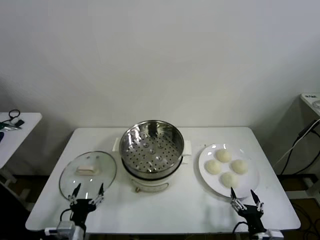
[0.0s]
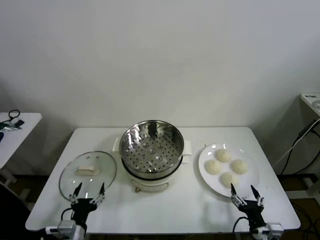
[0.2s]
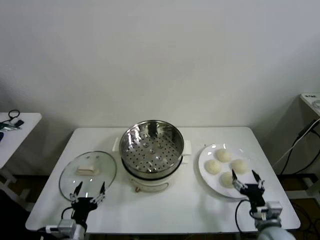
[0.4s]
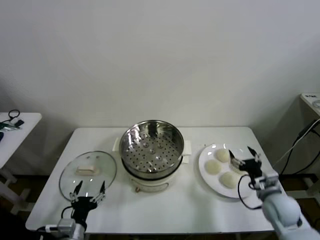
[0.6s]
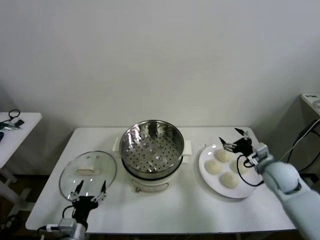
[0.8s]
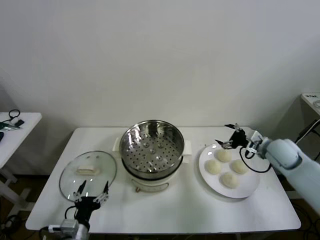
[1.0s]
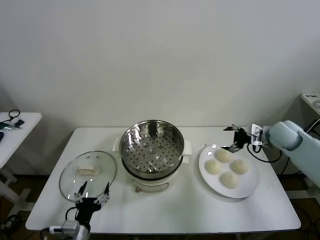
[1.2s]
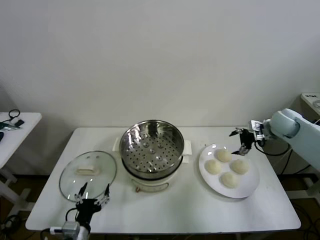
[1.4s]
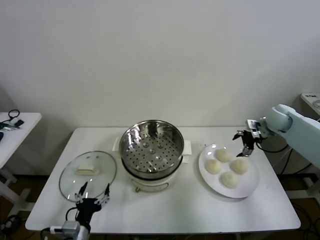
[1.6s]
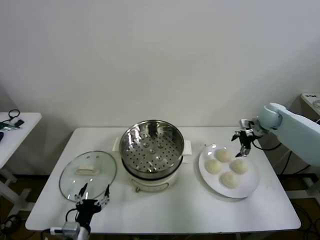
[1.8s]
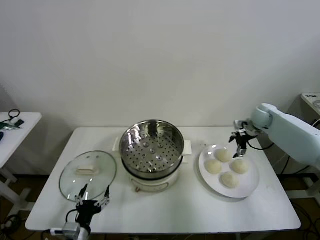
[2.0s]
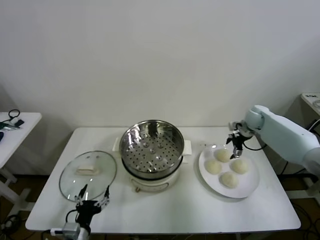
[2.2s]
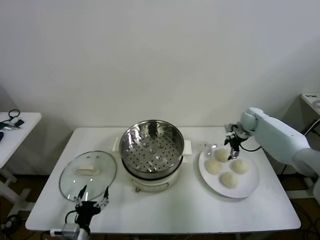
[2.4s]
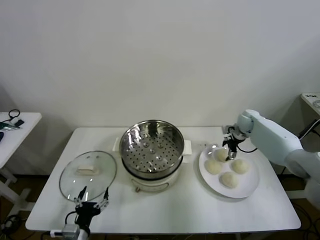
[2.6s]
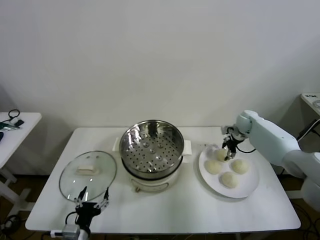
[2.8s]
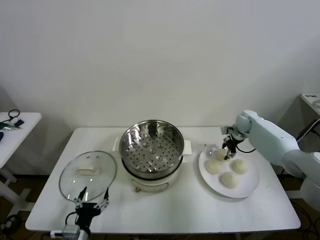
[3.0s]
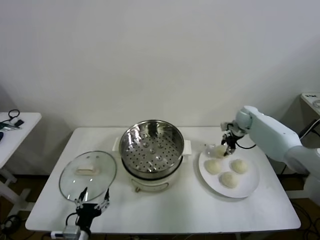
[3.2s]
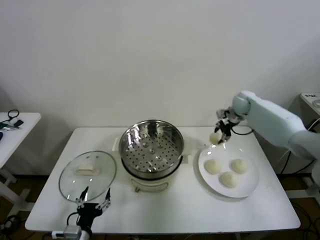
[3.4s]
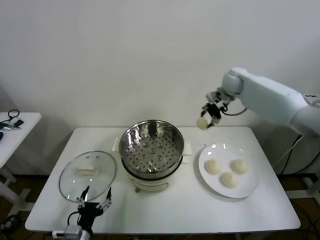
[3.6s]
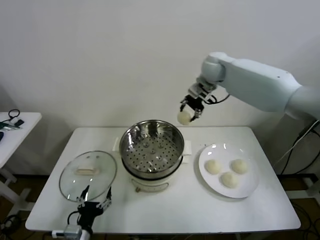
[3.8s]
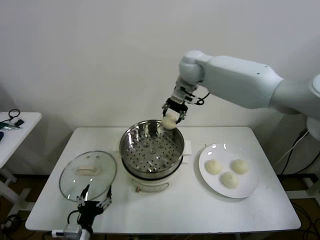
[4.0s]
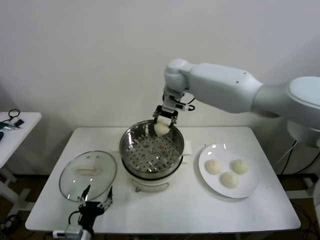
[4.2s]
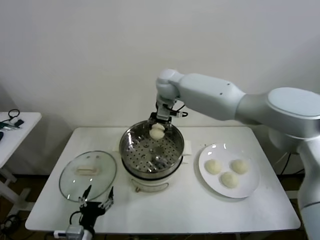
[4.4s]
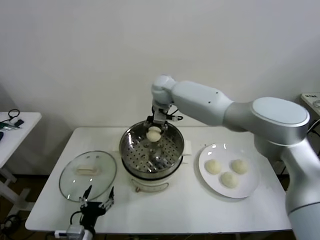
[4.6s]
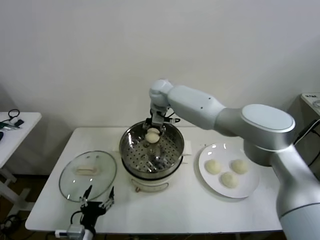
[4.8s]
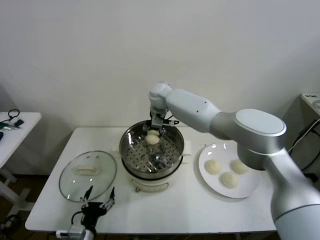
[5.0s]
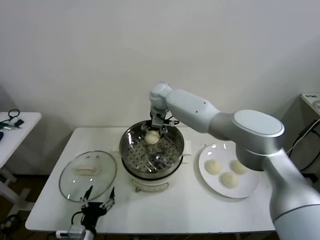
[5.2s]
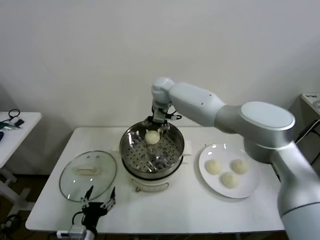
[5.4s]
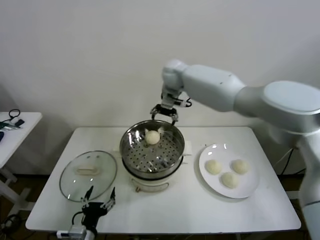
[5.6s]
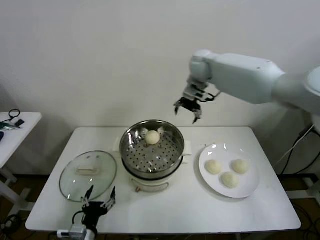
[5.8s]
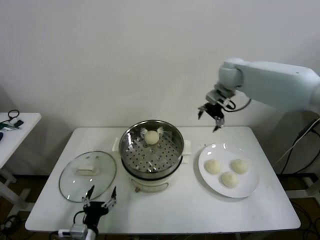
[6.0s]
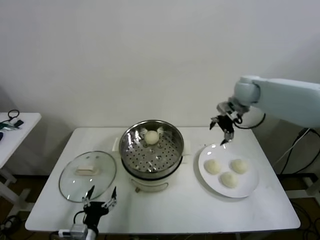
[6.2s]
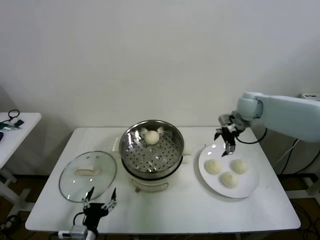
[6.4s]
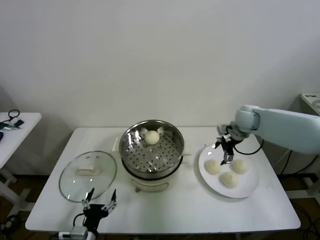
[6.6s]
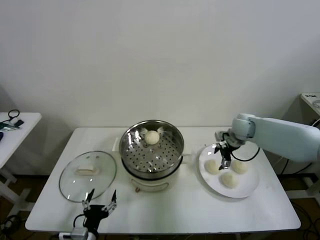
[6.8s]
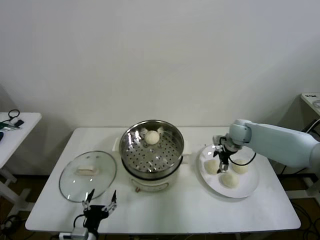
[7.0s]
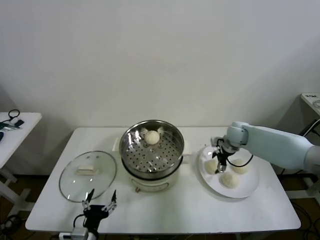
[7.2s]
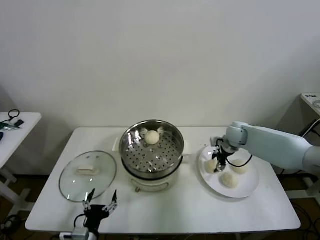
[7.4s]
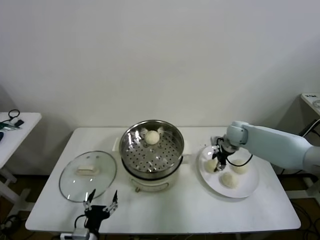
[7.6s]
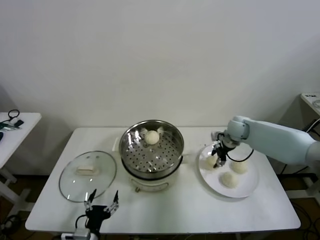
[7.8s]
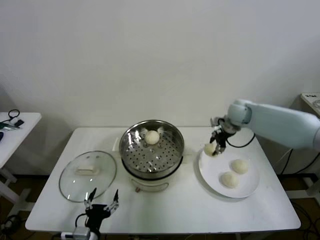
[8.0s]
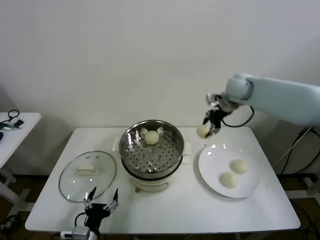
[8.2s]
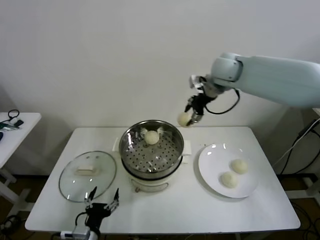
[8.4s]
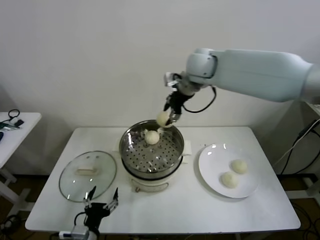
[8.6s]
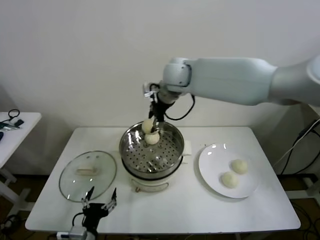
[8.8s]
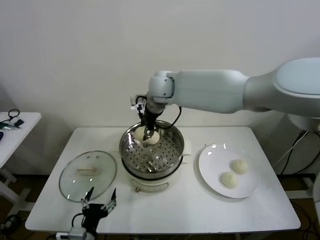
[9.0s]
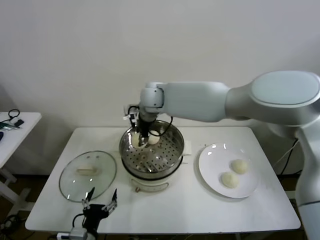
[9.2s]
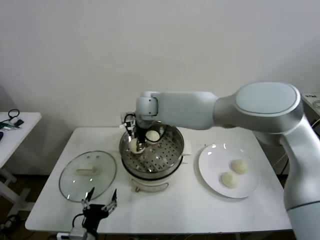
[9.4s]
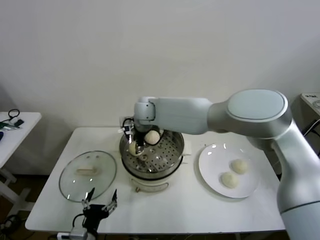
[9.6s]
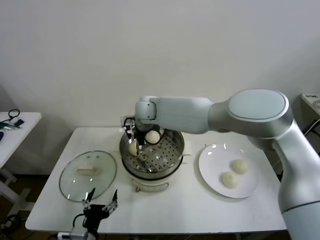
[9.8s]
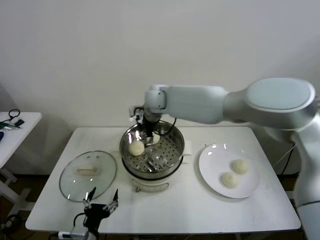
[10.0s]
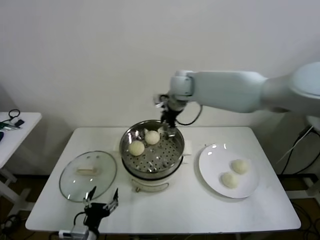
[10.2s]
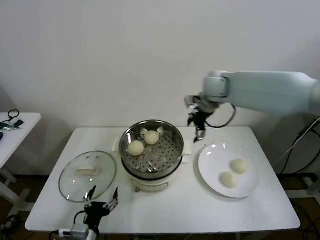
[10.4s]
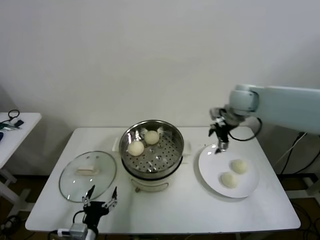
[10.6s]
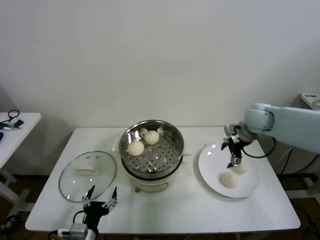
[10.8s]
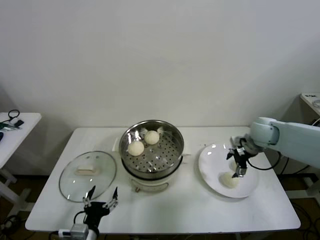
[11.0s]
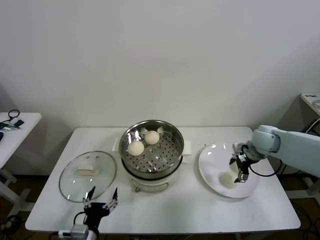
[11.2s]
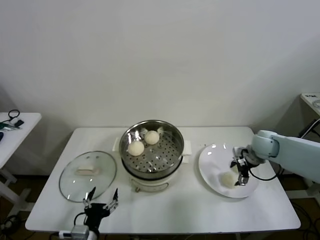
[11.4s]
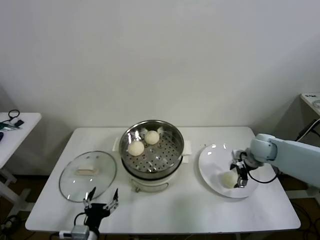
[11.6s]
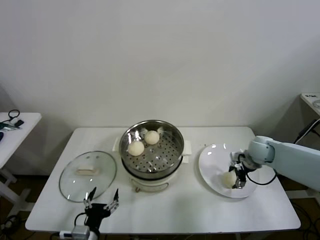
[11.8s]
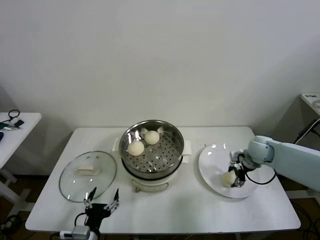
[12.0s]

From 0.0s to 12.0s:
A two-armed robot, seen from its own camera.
Step, from 0.0s to 2.8s: Grasp the baozi in the plate with right gripper.
Step, from 3.2s to 5.2s: Place the baozi on the steamer with right gripper.
Step, from 5.4s to 7.4s: Grasp the baozi in the plate with right gripper.
Step, from 7.6s to 9.6s: Place the baozi on the steamer with right gripper.
Step, from 10.0s to 12.0s: Grasp the baozi in the plate with right gripper.
From 1.6s to 3.0s: The right gripper moves downward, forward and to the left, some 10 cm, and closes up.
From 3.0s to 4.4s: The right gripper shifts approximately 40 cm to the left and upward.
From 4.4s to 6.0s: The right gripper is displaced to the right by approximately 25 cm, and opens.
From 6.0s to 7.6s: The right gripper goes some 20 cm downward, and closes its fingers.
From 7.6s to 9.0s: The right gripper heads to the left and upward, covering approximately 35 cm.
From 9.0s to 10.4s: The right gripper goes some 20 cm to the right, and opens up.
From 10.4s to 12.0s: The right gripper goes roughly 25 cm downward and to the right, and closes.

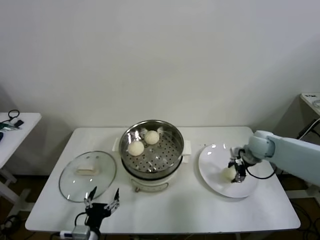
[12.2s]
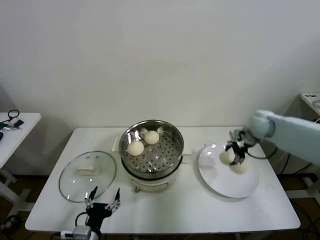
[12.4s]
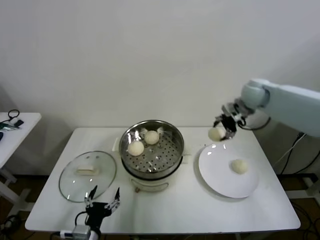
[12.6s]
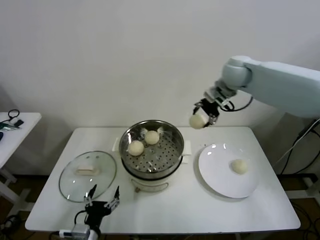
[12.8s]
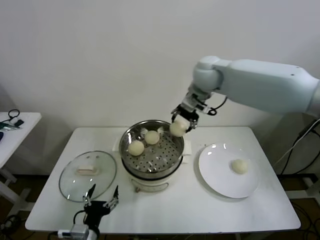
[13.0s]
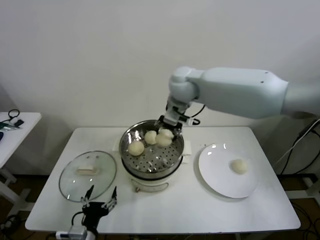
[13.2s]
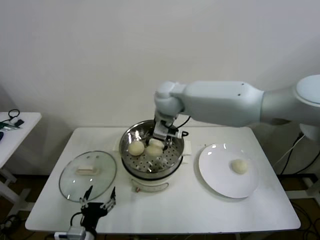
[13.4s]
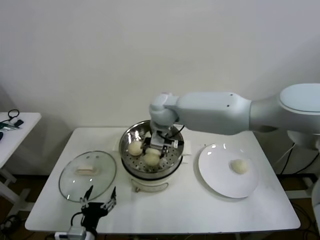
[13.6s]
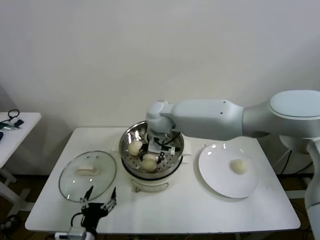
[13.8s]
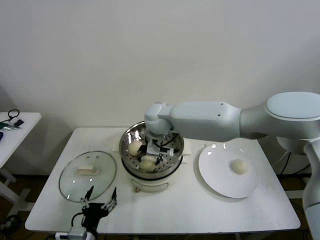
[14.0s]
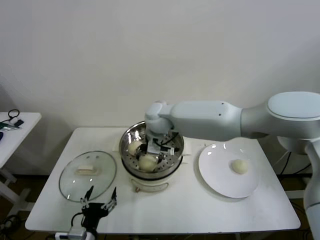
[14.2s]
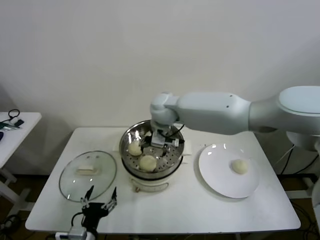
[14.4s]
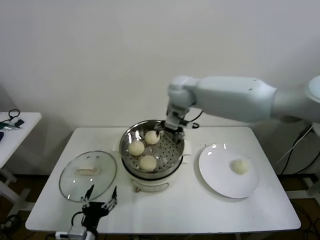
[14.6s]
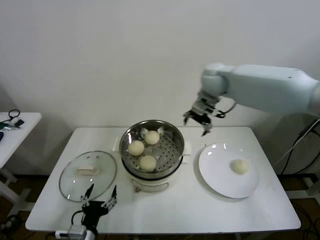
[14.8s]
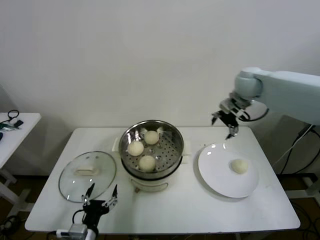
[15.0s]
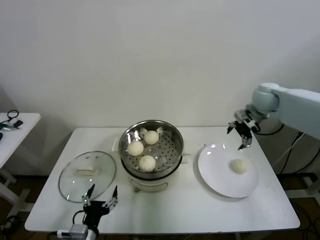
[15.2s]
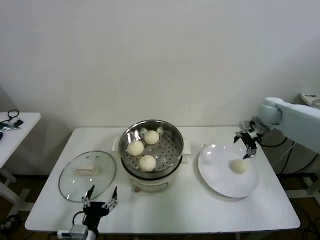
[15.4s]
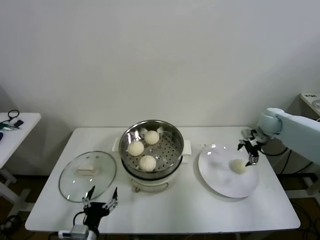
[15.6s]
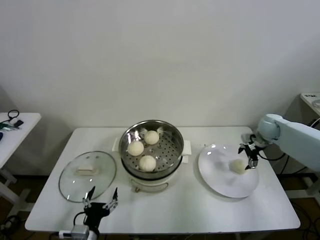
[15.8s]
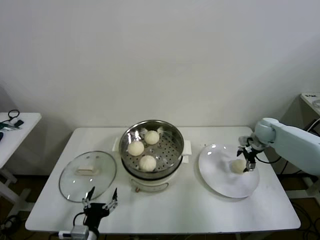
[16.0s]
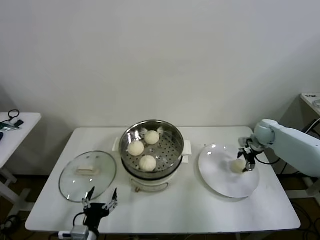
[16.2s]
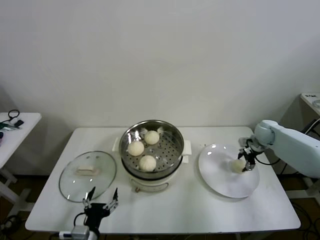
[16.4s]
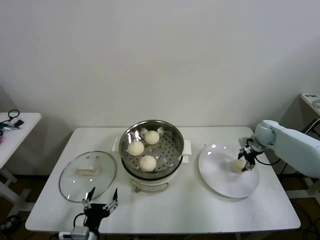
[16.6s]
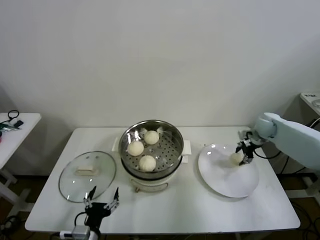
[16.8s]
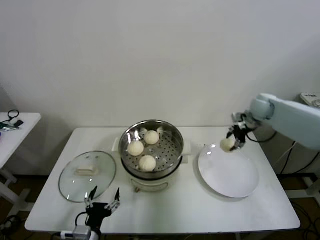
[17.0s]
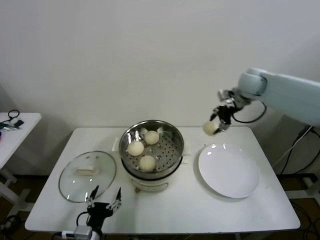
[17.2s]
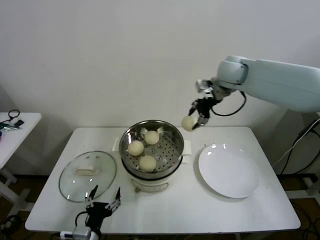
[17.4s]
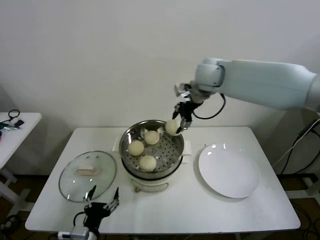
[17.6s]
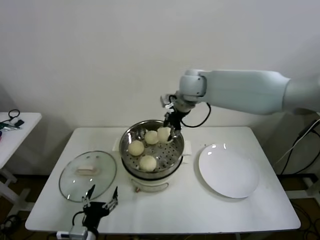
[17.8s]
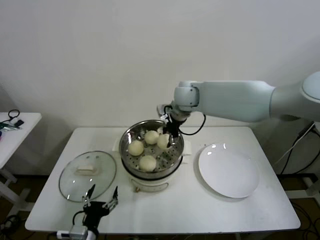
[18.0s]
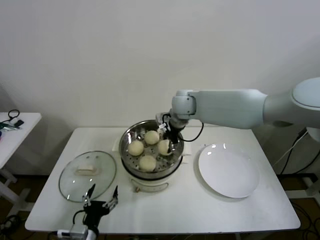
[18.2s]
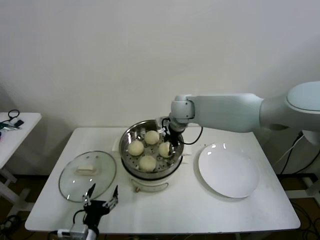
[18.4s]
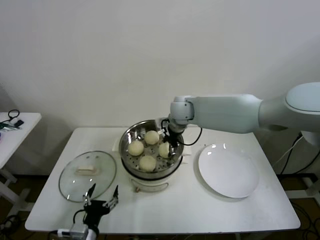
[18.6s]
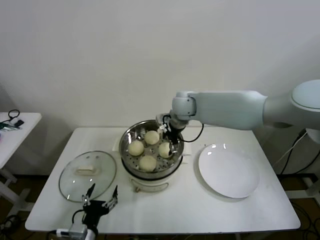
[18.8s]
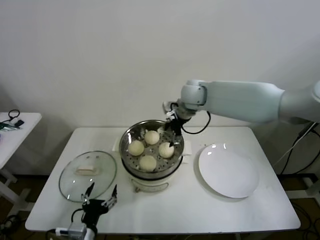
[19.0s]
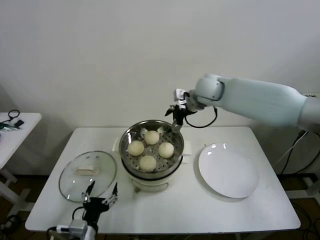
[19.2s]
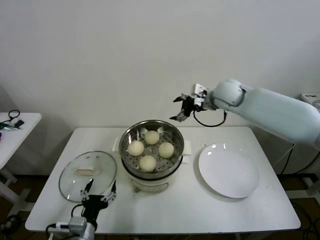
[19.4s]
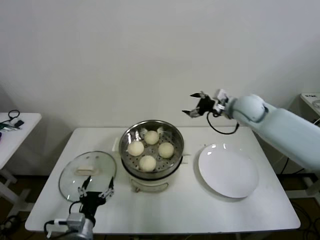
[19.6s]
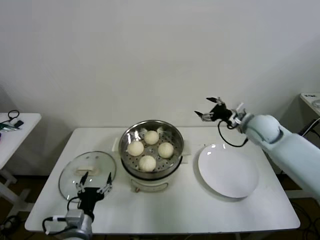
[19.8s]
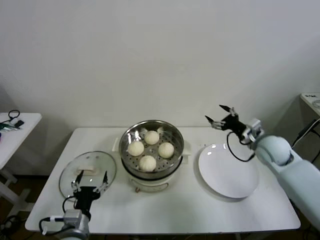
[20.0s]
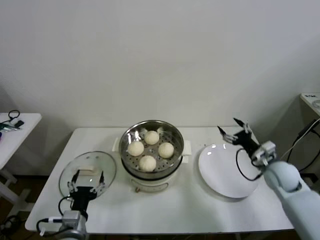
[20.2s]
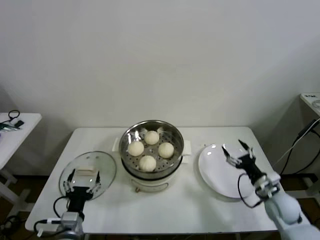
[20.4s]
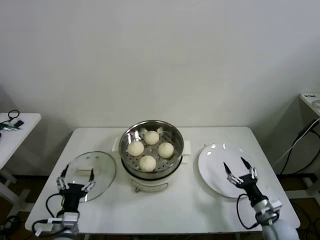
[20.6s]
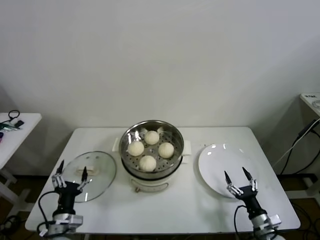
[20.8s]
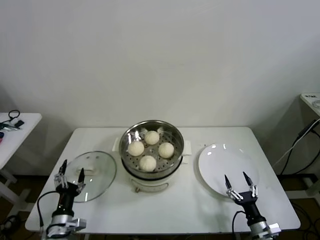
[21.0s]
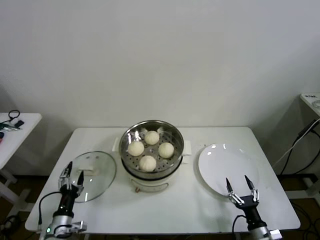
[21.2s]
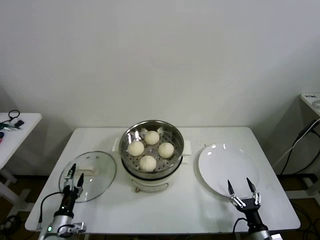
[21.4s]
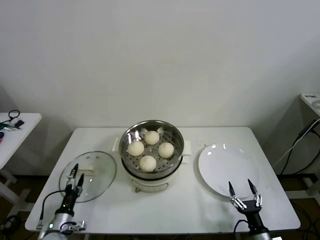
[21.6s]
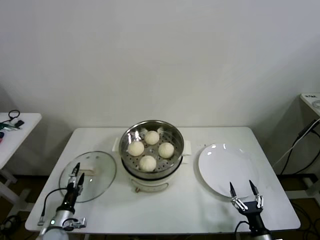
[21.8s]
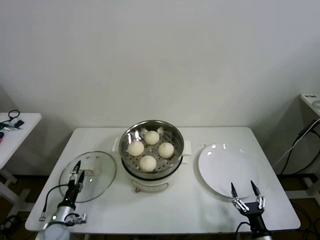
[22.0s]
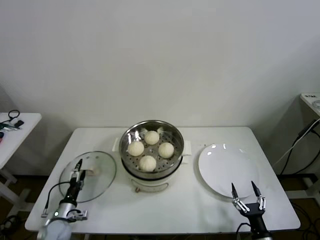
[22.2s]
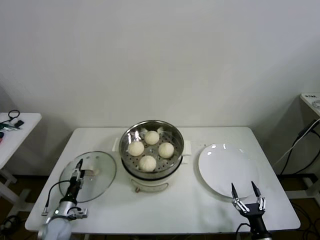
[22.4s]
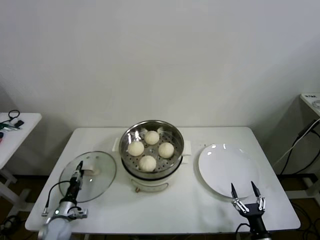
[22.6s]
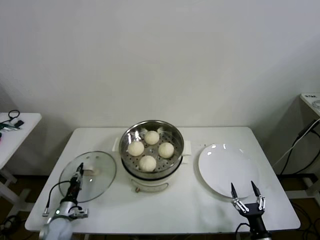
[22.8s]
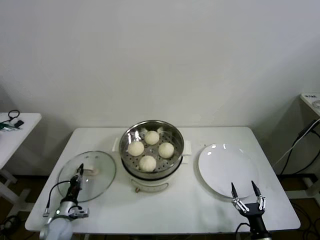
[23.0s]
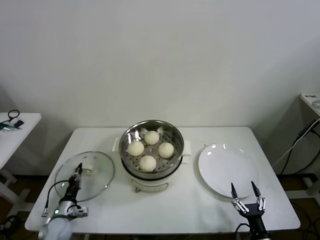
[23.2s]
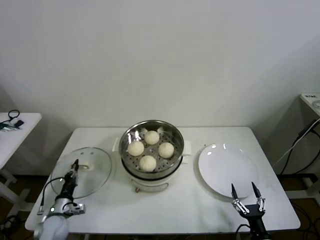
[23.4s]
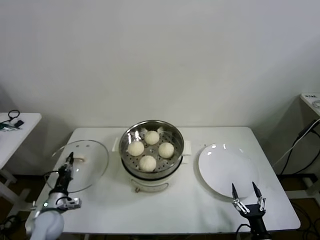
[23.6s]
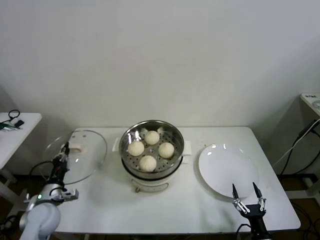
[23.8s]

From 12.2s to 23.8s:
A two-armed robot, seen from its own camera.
Step, from 12.2s to 14.0s: Place the baozi on the steamer with right gripper.
Step, from 14.4s to 16.4s: Grasp the baozi in the plate with right gripper.
Step, from 16.6s to 18.6s: Place the baozi on the steamer with right gripper.
Step, from 18.8s to 22.8s: Grasp the pot lid with left gripper.
From 12.2s to 13.6s: The right gripper moves to the left, about 35 cm.
From 13.6s to 15.0s: The right gripper moves to the right, some 30 cm, and opens its fingers.
From 15.0s to 16.6s: The right gripper moves downward and to the right, roughly 25 cm, and closes.
From 16.6s to 18.0s: The right gripper shifts about 40 cm to the left and upward.
From 18.0s to 19.4s: The right gripper shifts about 15 cm to the right, and opens its fingers.
From 19.4s to 21.0s: The right gripper is displaced downward and backward by about 50 cm. The left gripper goes about 10 cm to the left.
From 21.0s to 22.4s: The left gripper heads downward, forward and to the left, covering roughly 15 cm, while the right gripper changes place by approximately 5 cm.
From 22.4s to 23.8s: The left gripper is displaced upward by roughly 10 cm, and closes its fingers.
